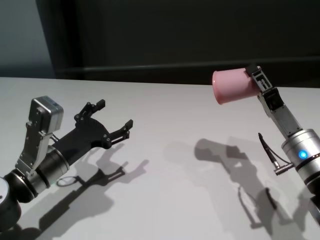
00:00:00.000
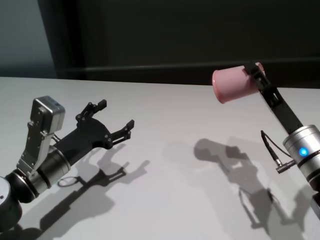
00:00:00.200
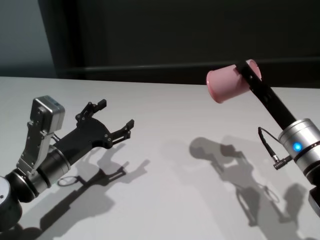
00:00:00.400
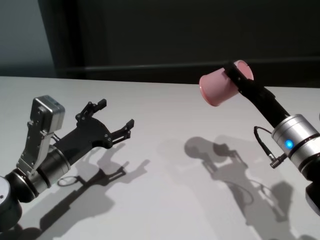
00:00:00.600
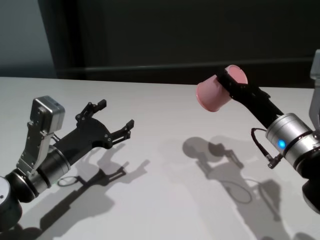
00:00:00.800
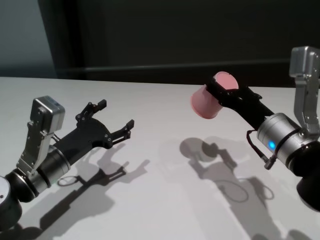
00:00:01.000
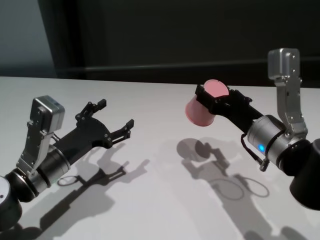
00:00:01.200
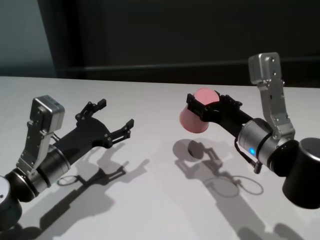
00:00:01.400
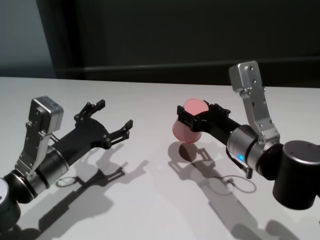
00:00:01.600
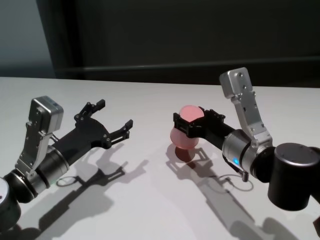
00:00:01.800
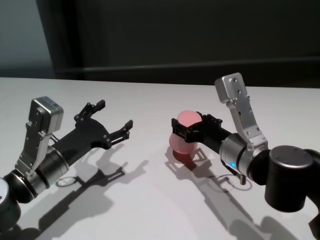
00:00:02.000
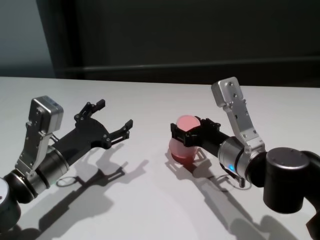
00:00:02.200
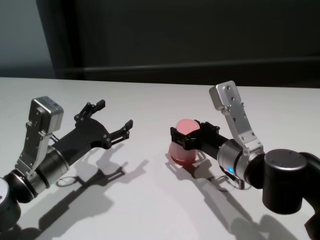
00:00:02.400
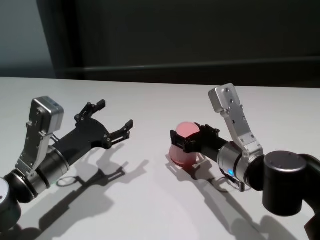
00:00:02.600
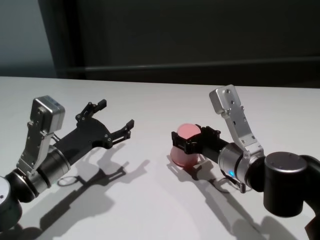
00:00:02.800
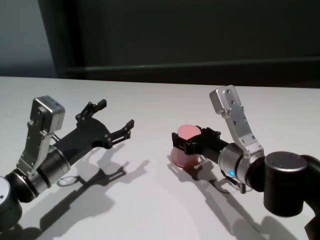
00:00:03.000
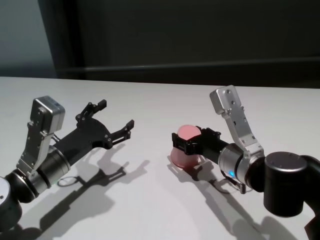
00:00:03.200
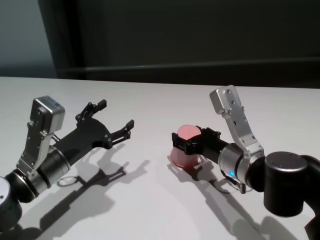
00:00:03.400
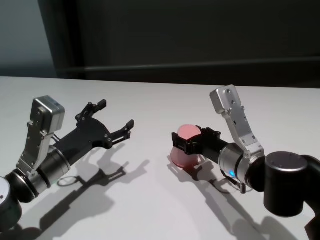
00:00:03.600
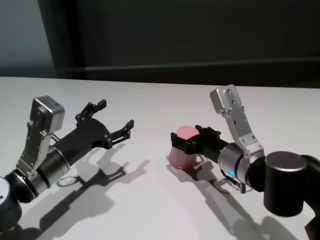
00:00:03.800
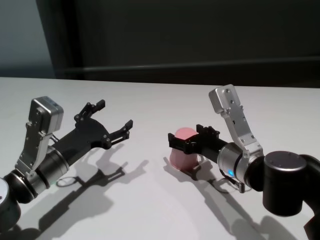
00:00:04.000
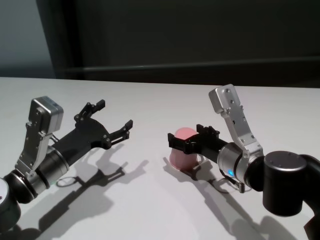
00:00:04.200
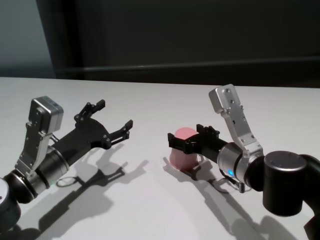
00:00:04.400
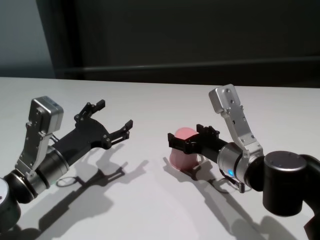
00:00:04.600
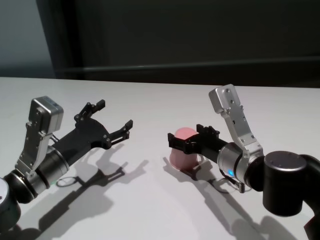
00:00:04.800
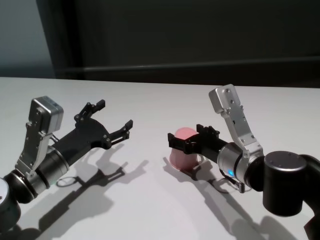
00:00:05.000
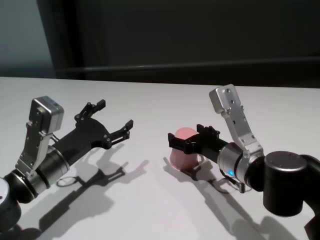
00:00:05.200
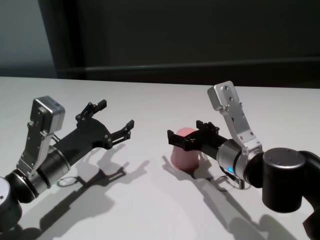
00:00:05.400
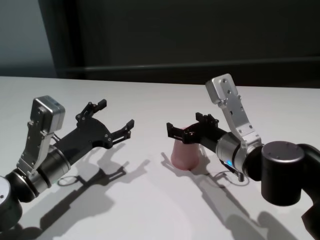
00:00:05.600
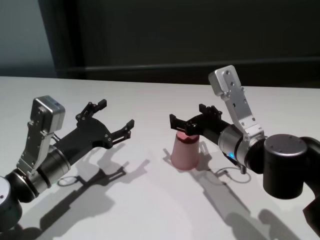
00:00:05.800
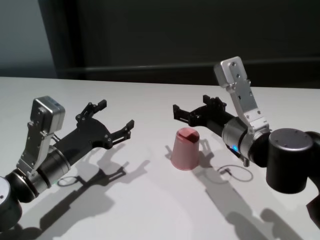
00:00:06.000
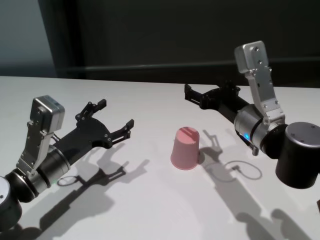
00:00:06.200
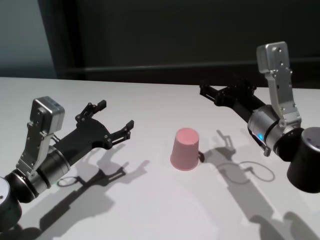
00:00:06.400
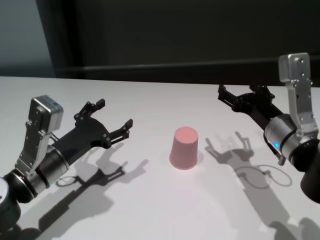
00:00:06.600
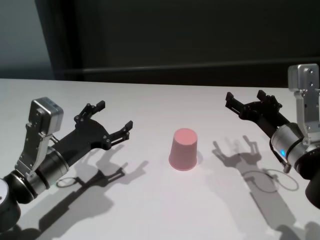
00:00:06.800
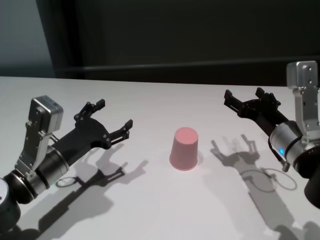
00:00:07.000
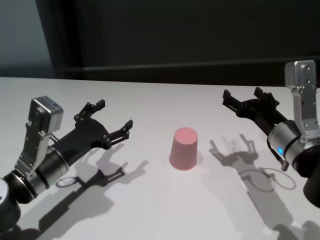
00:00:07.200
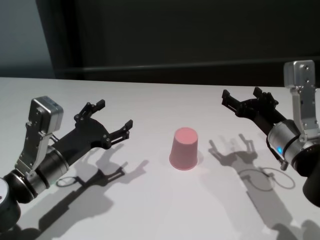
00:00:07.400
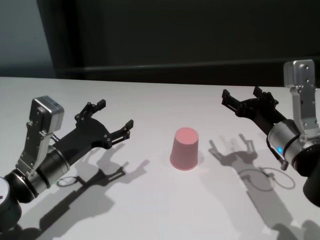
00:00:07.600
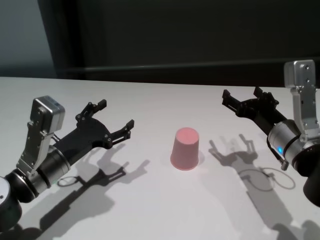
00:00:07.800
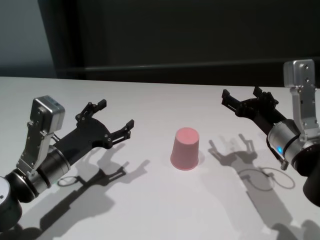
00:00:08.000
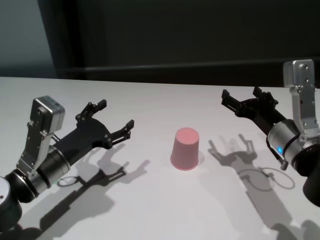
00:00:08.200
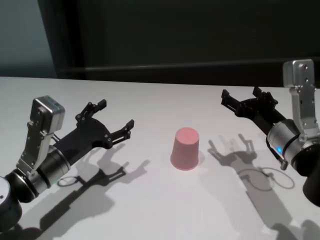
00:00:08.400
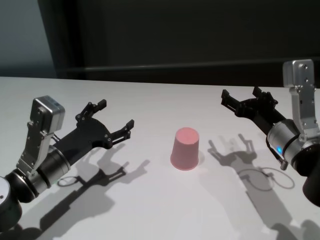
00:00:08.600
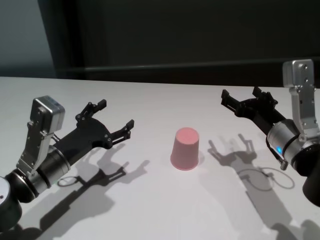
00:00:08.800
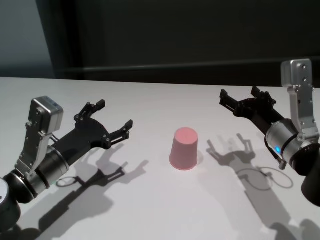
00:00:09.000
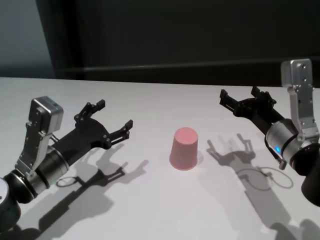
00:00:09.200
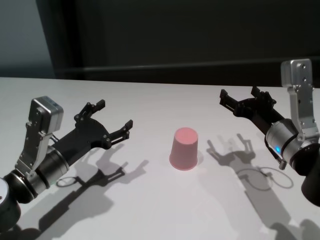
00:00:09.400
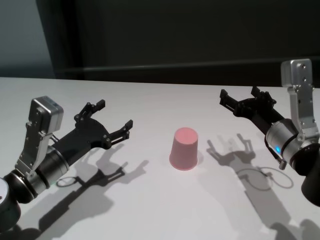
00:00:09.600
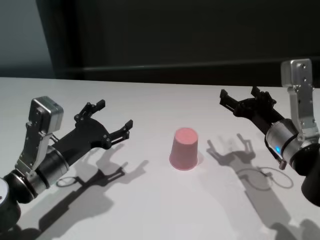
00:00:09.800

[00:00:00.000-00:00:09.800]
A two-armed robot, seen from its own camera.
Task of the whole recording: On the white table pick up the cup with one hand and transfer it to the other hand before turning it over.
Step, 00:00:00.000 to 00:00:05.000: Place the cup on the table with right gripper.

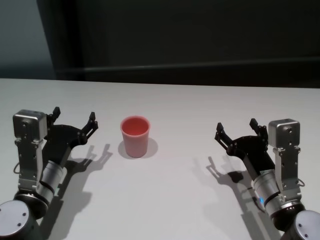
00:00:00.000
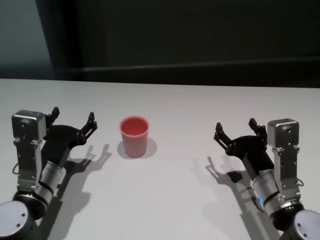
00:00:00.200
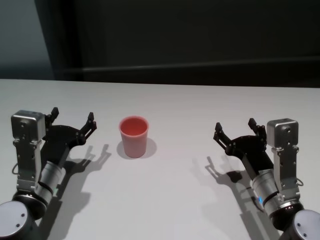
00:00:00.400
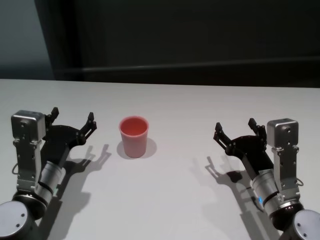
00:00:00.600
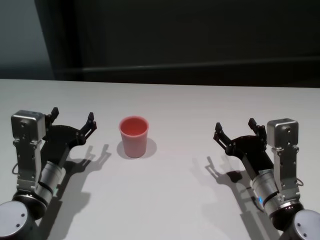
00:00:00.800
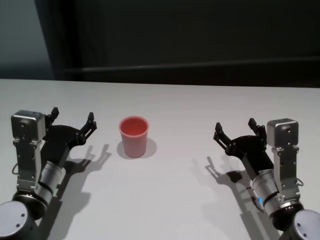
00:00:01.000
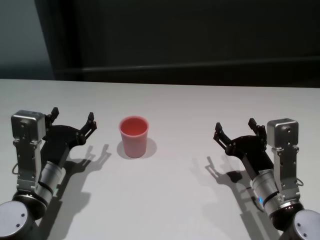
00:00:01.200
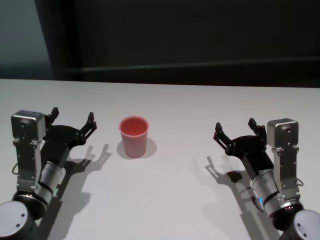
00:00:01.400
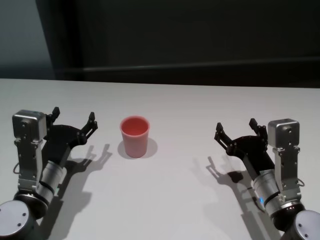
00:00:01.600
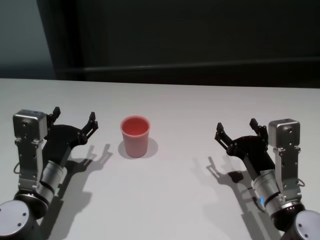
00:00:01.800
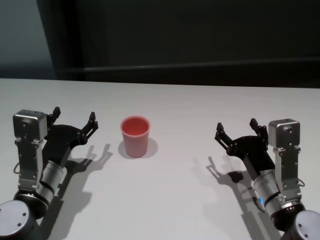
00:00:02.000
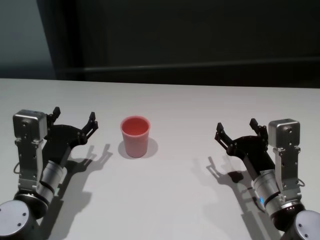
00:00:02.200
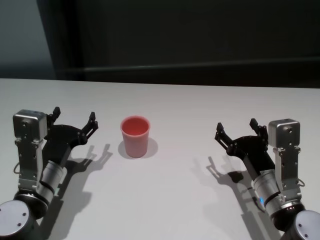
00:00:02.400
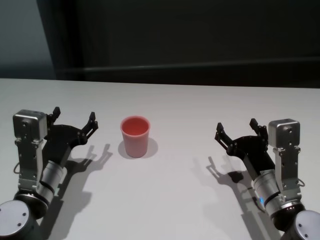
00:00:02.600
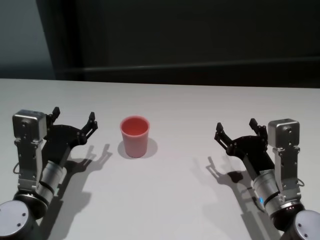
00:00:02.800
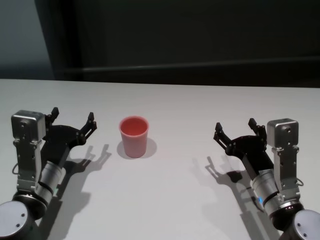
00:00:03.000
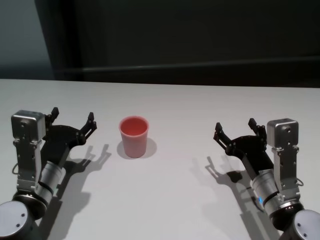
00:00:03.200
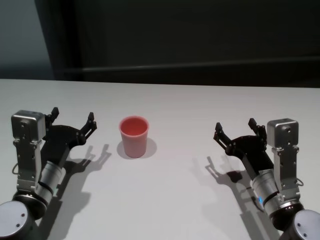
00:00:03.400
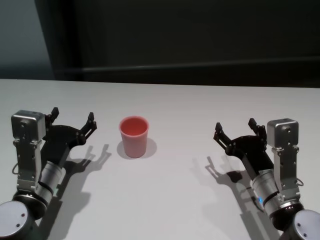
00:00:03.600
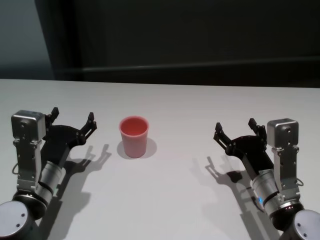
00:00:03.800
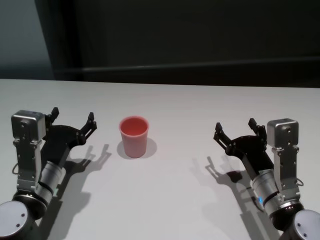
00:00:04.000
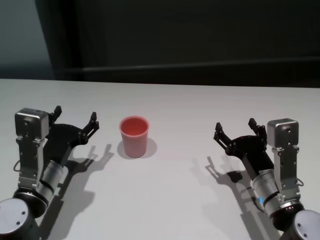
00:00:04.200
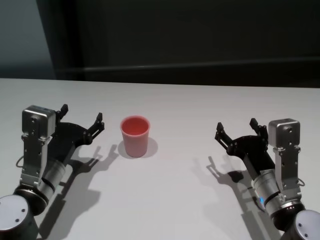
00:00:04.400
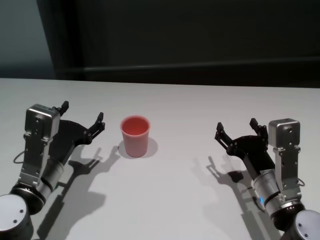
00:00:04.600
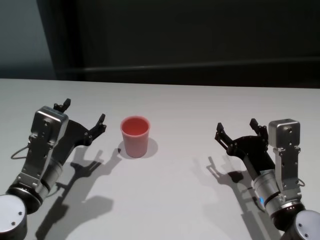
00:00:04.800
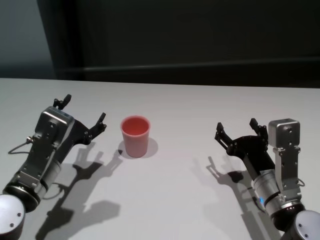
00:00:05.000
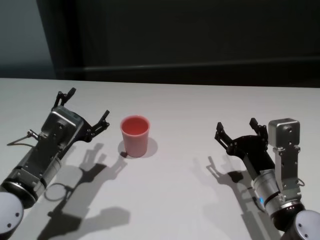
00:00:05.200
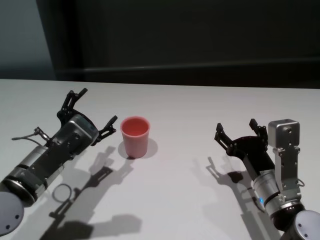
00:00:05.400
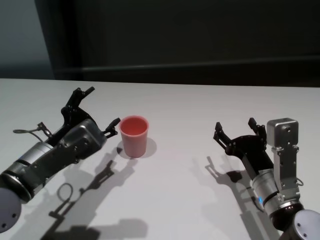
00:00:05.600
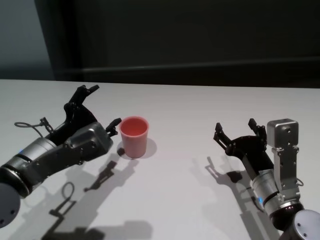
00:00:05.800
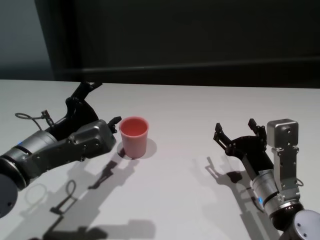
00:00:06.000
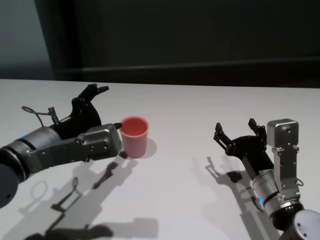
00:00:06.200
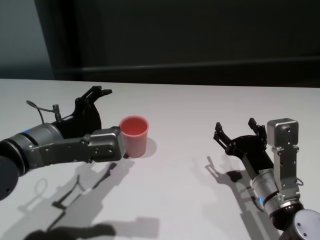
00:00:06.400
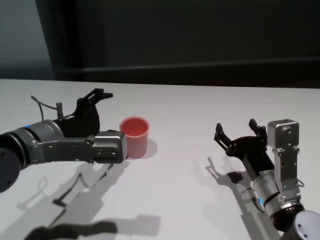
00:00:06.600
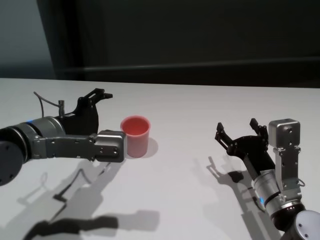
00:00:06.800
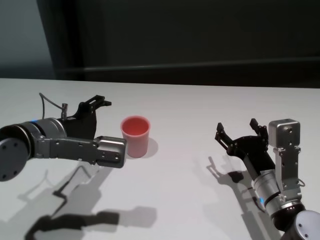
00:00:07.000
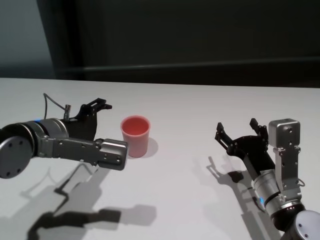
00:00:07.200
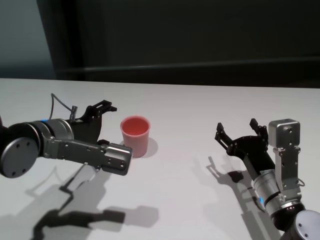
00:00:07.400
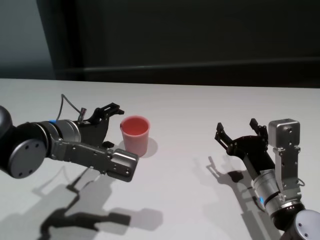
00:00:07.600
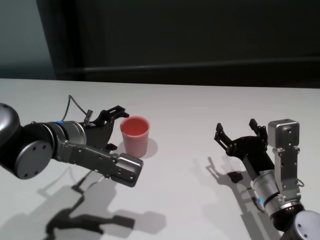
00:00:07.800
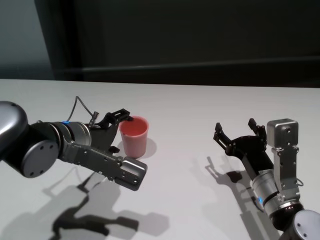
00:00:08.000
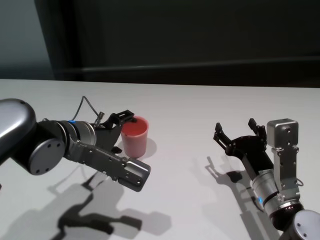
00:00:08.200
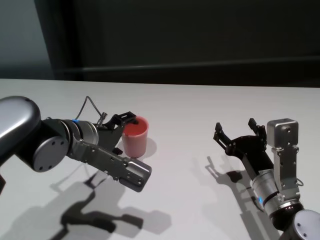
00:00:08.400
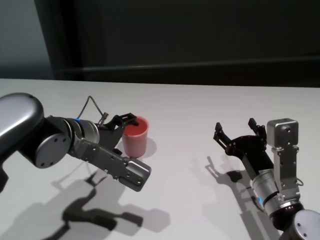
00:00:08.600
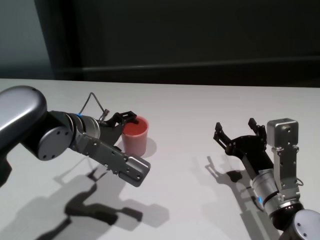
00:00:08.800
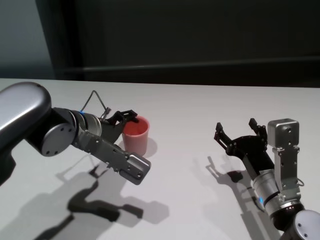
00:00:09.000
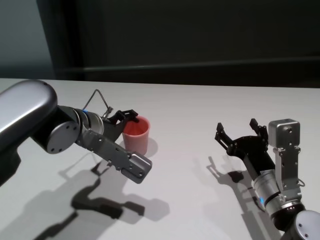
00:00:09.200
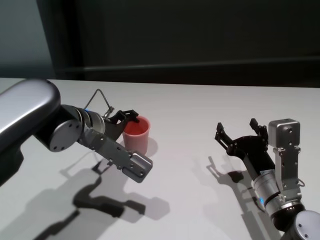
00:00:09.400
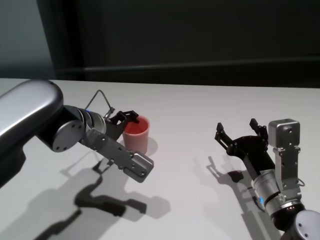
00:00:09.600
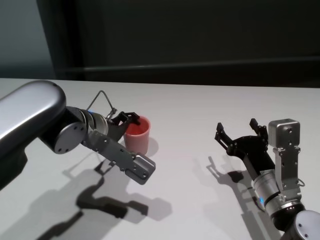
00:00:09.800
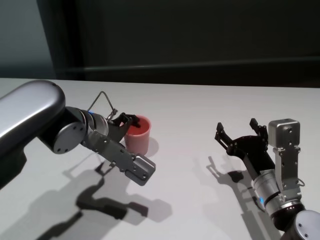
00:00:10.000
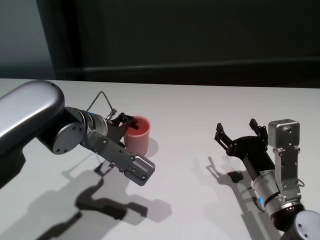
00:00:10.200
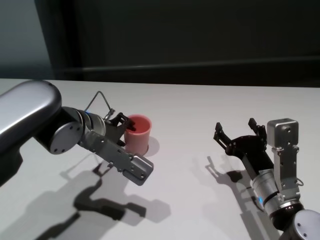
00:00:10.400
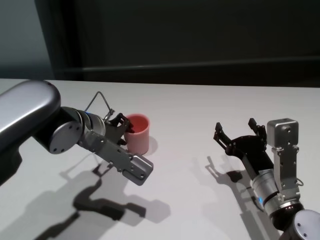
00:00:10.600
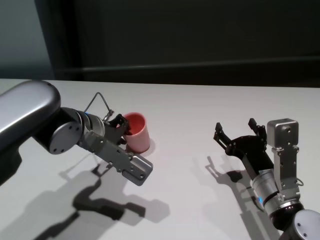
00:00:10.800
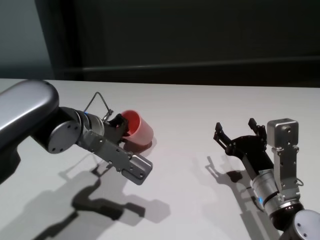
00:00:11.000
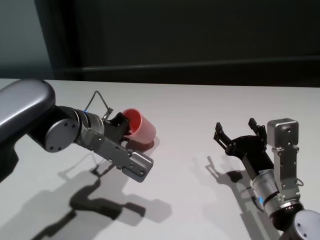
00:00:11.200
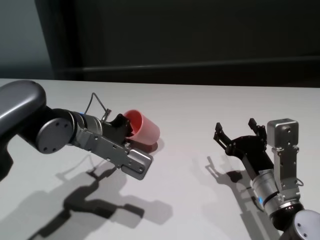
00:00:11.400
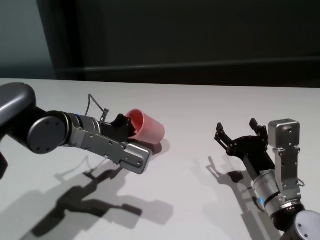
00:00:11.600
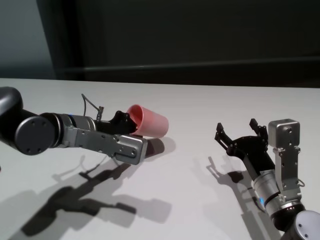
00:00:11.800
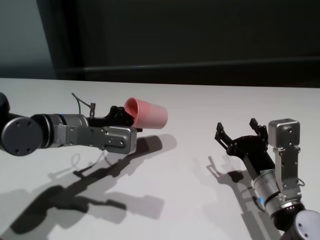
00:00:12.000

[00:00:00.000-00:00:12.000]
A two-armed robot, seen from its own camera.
Task of the whole recording: On the white table pick up the cup with one hand and transfer it to the other hand before turning it over.
Step, 00:00:00.000 to 00:00:10.600: Grasp the cup with left gripper.

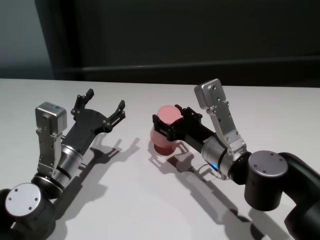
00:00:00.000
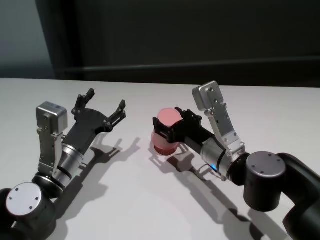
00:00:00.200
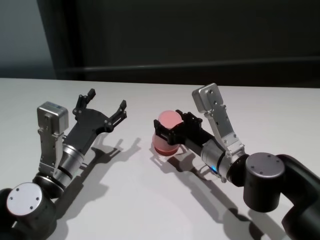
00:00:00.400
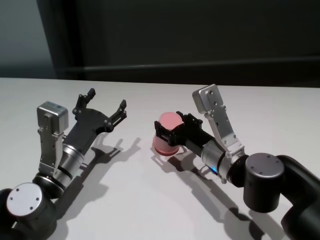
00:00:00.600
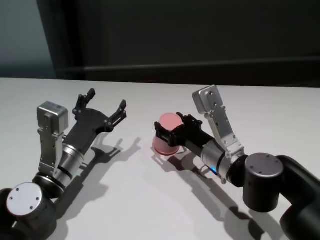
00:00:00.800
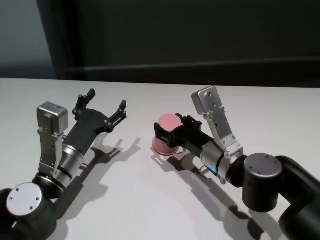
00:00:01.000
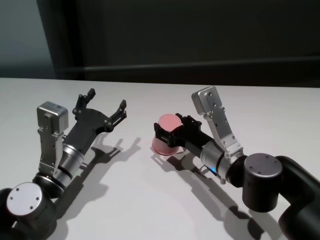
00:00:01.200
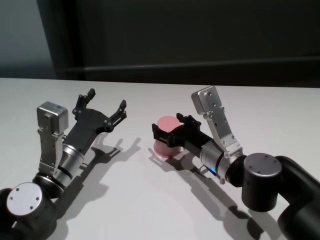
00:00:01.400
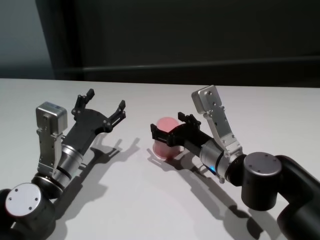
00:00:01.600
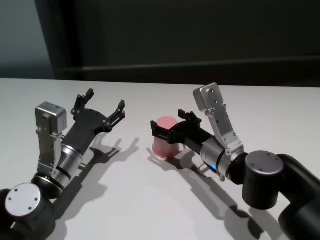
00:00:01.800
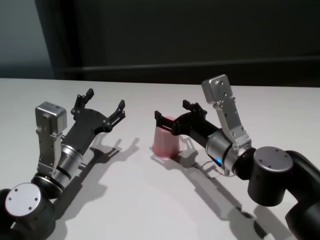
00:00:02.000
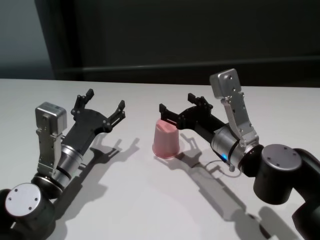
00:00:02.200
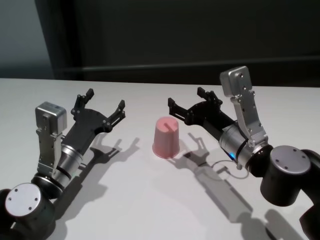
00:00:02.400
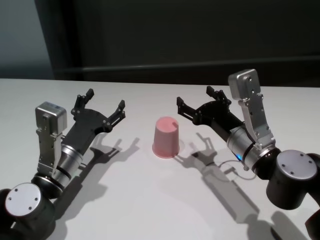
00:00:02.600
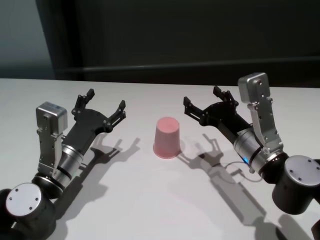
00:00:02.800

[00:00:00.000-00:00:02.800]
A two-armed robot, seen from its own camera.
Task of the whole recording: On the white table pick up the cup with one hand and transfer it to the other hand before turning it over.
Step, 00:00:00.000 to 00:00:02.200: Place the cup on the table with right gripper.
